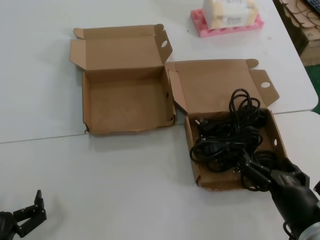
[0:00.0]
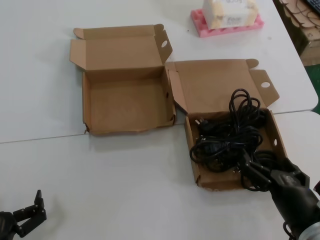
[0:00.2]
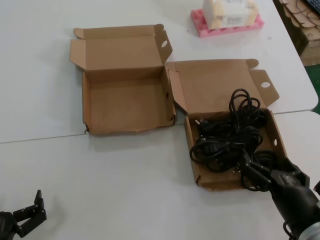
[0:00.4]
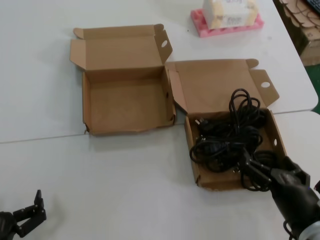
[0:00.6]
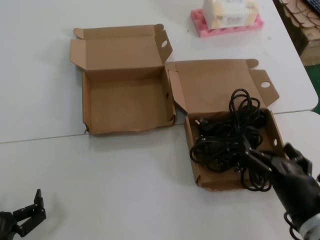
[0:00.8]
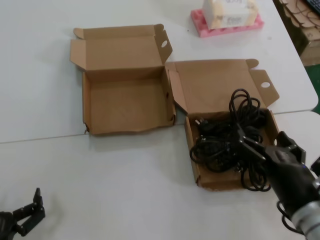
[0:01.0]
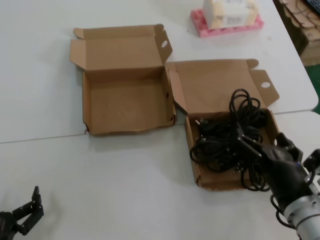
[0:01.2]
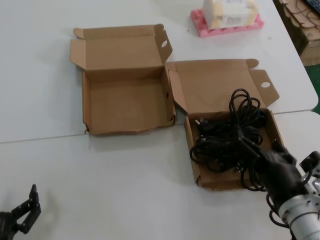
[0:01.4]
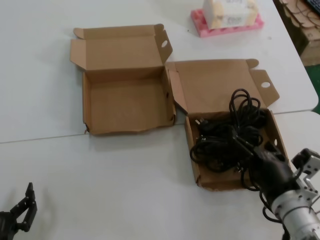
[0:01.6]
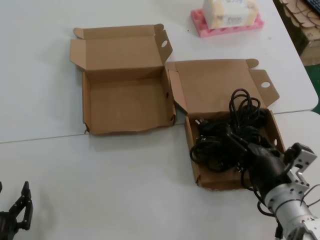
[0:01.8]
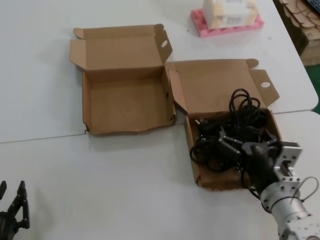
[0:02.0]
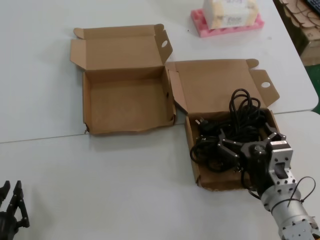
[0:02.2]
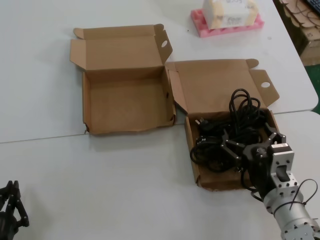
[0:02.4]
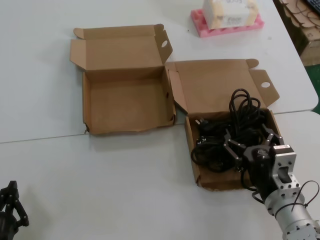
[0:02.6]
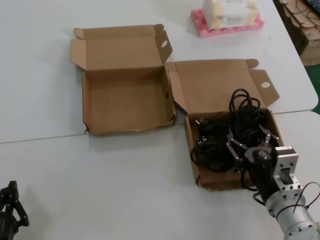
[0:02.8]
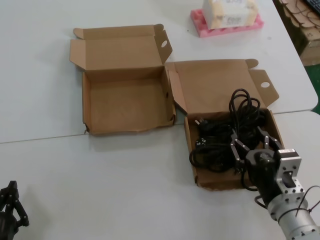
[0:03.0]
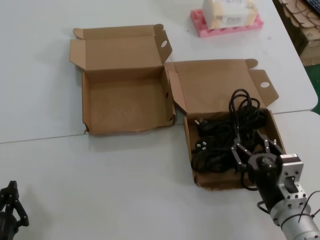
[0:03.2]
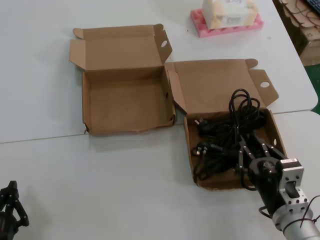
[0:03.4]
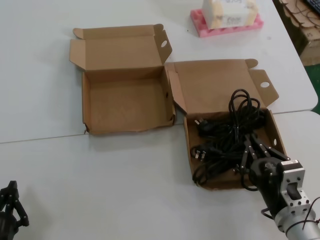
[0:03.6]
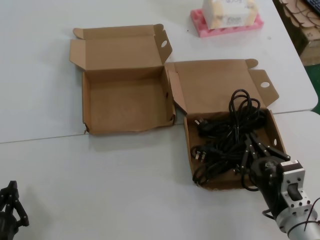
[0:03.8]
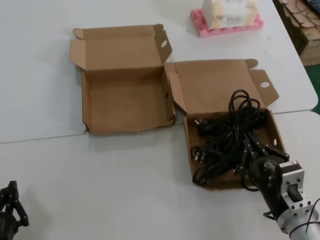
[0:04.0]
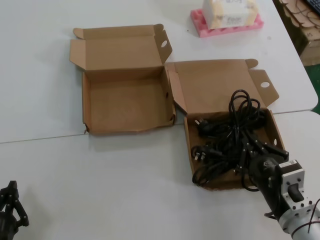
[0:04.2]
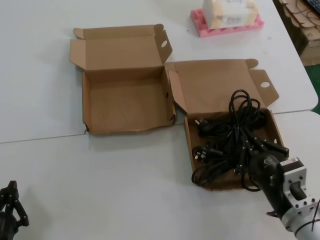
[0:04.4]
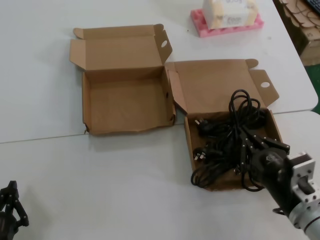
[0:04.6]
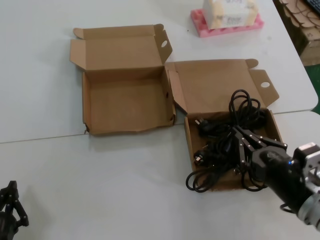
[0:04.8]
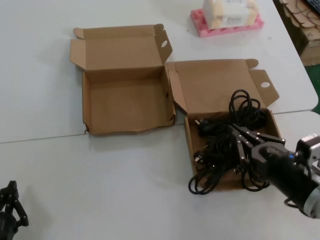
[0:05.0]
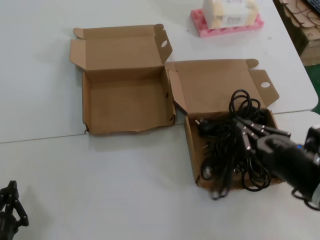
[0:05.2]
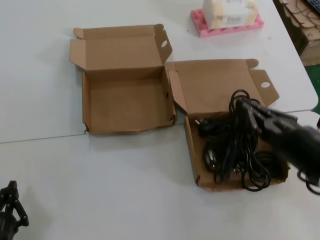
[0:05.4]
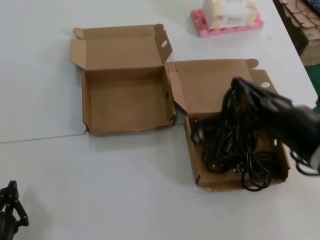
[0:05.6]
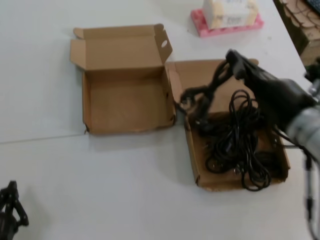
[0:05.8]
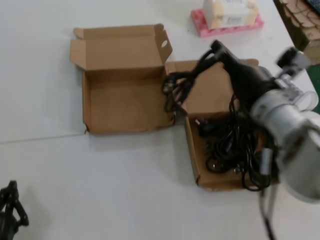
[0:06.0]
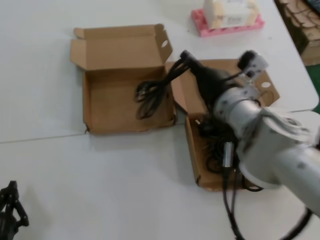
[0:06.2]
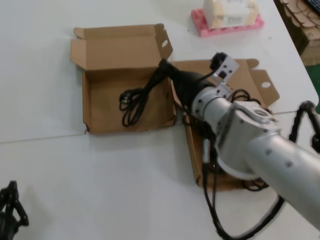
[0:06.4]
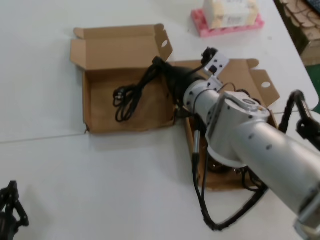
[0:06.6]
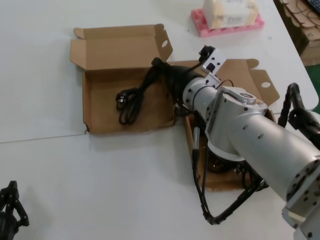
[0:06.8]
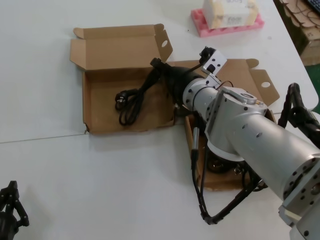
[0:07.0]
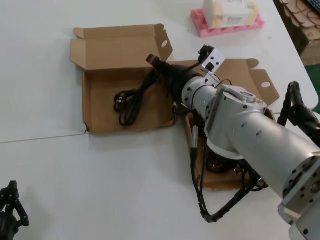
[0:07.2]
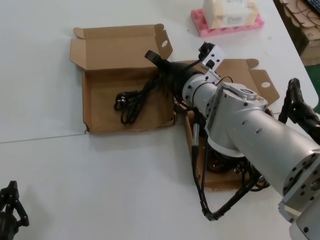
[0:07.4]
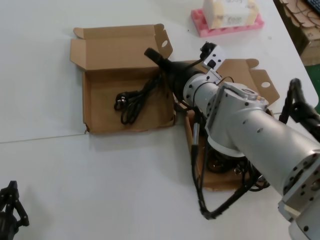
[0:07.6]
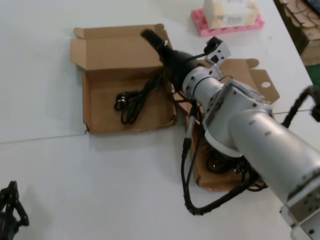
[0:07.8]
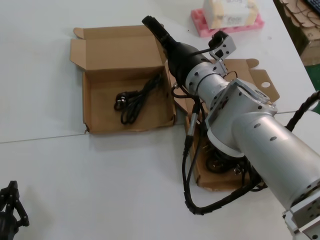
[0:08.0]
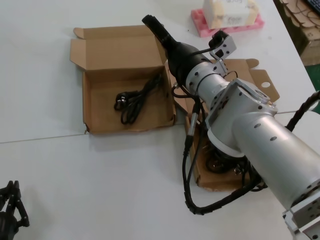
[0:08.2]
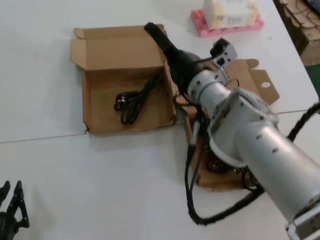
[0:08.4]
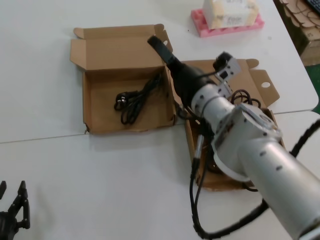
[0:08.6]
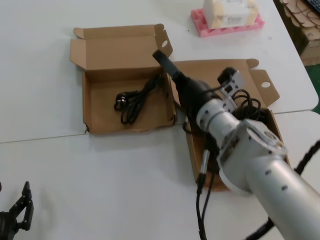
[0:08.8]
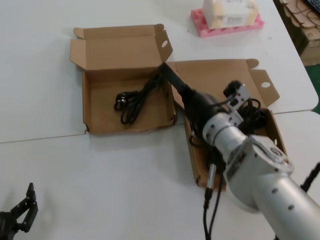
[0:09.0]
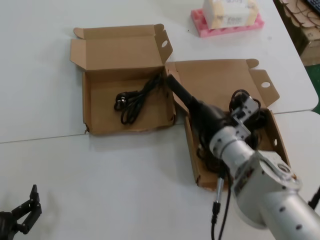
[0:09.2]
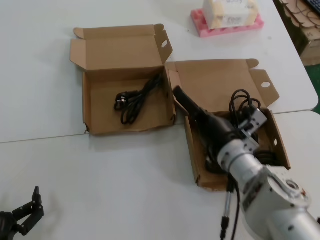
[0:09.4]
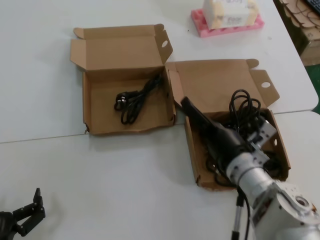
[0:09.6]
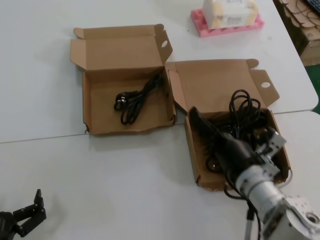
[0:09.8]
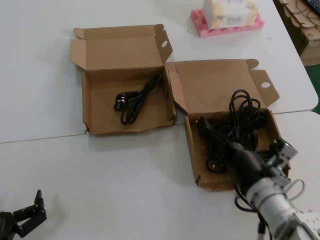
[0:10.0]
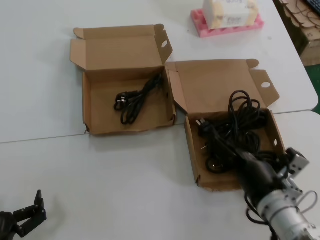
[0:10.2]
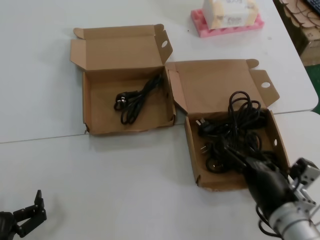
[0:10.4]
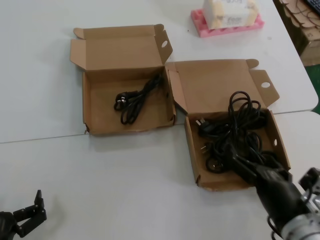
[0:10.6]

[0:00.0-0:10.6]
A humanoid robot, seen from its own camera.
Task of the whole recording: Pick up the power cord from the box containing it and place it in another box.
Step, 0:00.0 to 0:03.8: Grasp the data cable.
Step, 0:04.2 to 0:07.6: Place the data cable in the another box.
0:00.0 to 0:01.6: The right hand shifts about 5 cm forward.
0:03.0 to 0:04.6: The right hand changes place by roughly 5 cm.
0:04.6 to 0:06.0: The right hand goes roughly 20 cm upward and forward.
0:06.0 to 0:07.6: The right hand shifts about 15 cm forward and to the left.
0:07.6 to 0:09.0: The right hand goes about 10 cm downward and backward.
0:09.0 to 0:10.6: The right hand heads backward, downward and to the right, covering roughly 25 cm.
